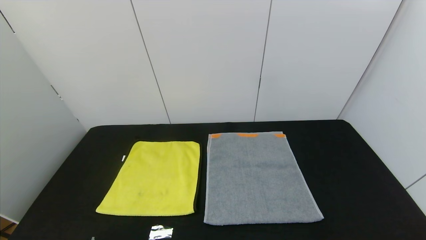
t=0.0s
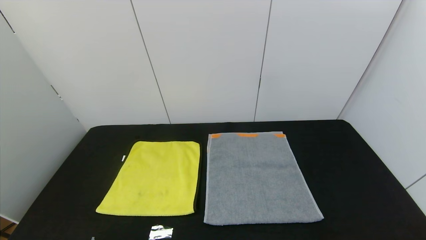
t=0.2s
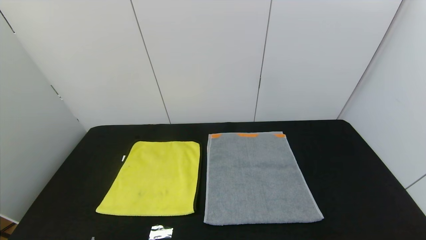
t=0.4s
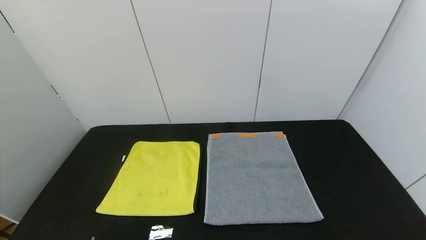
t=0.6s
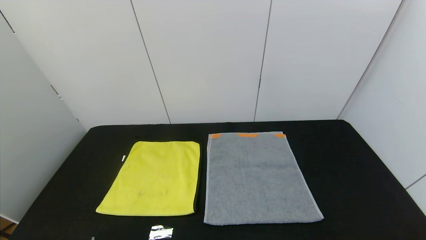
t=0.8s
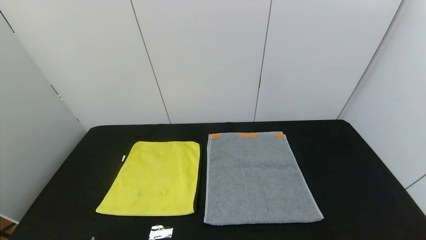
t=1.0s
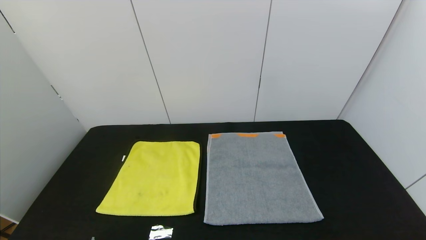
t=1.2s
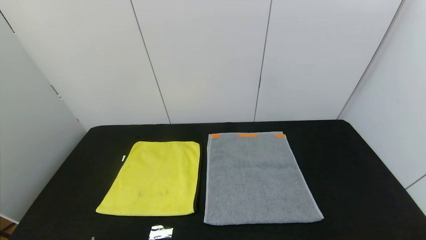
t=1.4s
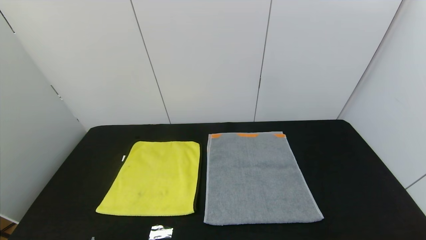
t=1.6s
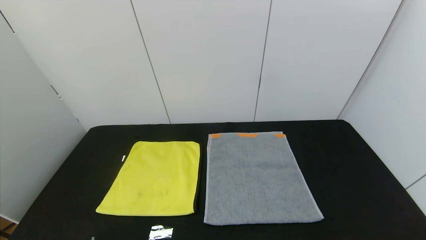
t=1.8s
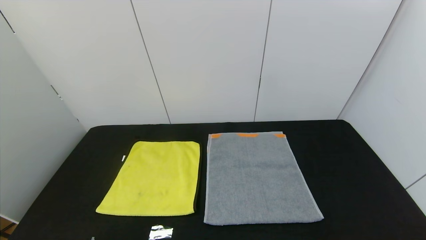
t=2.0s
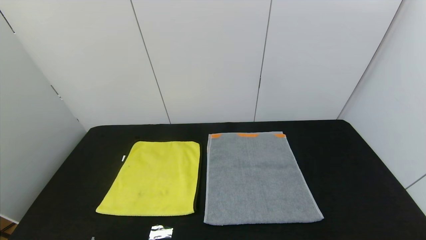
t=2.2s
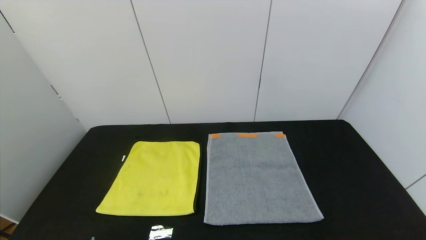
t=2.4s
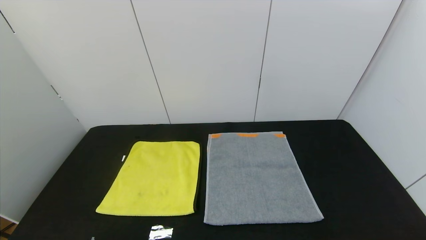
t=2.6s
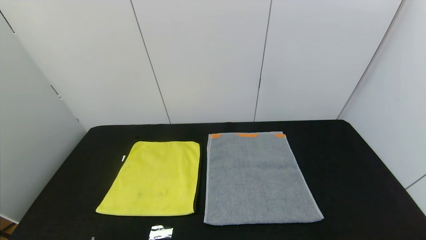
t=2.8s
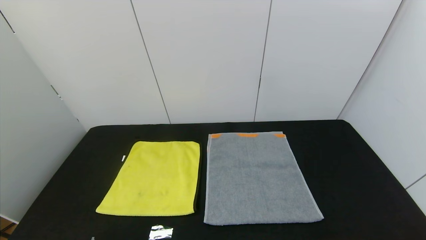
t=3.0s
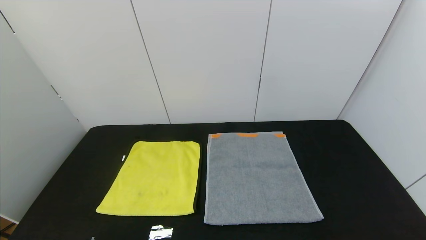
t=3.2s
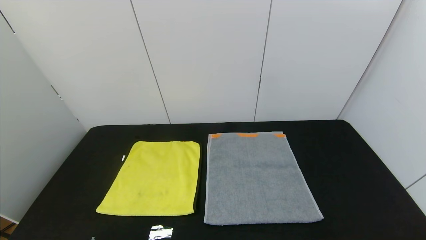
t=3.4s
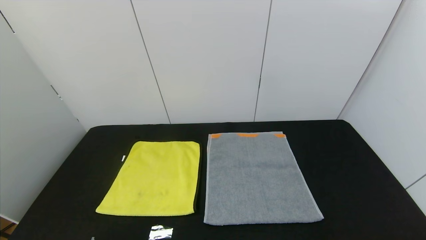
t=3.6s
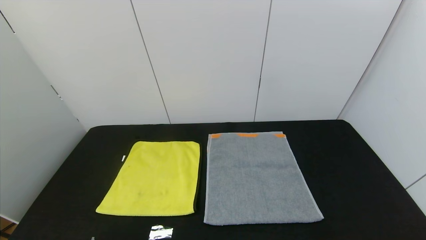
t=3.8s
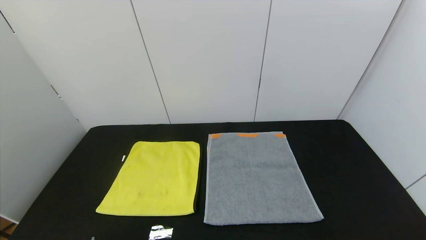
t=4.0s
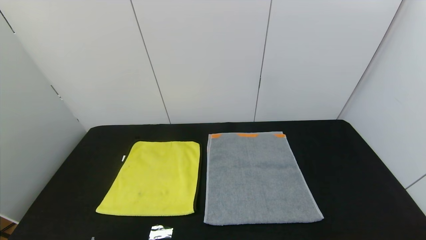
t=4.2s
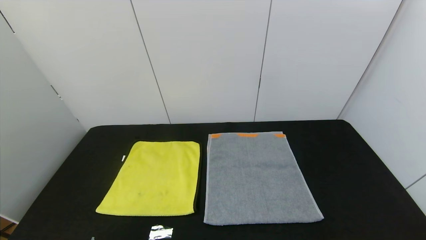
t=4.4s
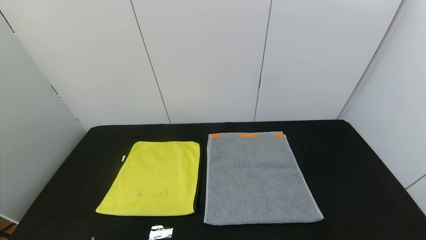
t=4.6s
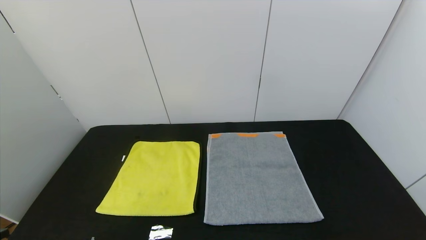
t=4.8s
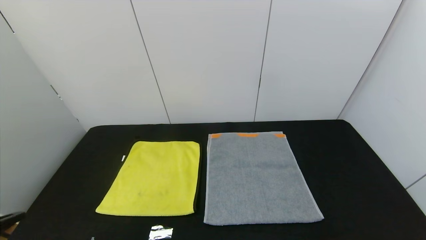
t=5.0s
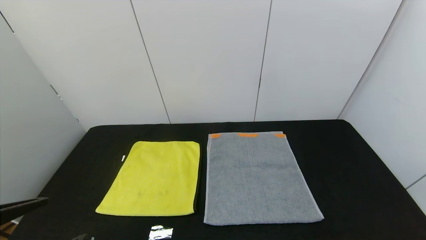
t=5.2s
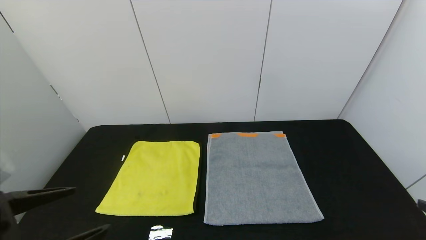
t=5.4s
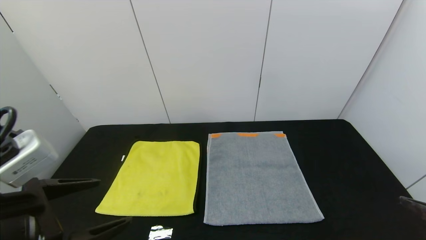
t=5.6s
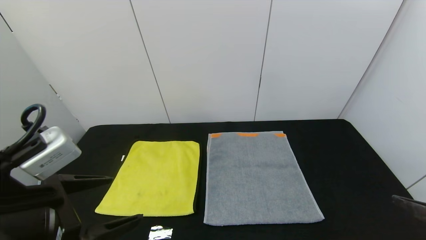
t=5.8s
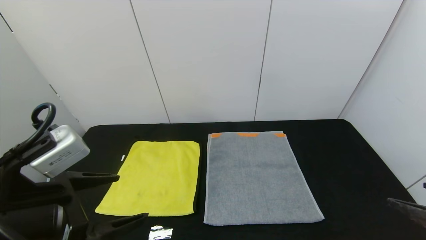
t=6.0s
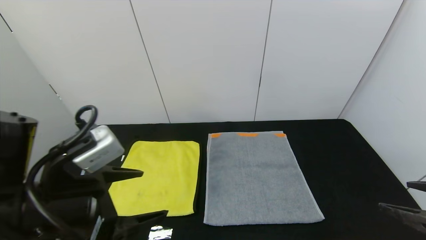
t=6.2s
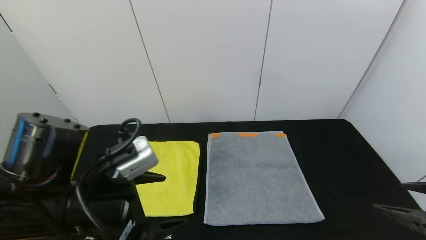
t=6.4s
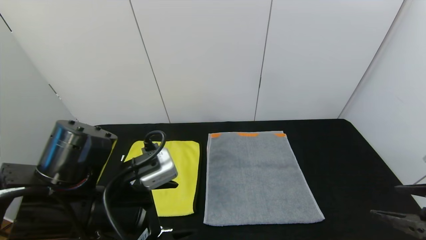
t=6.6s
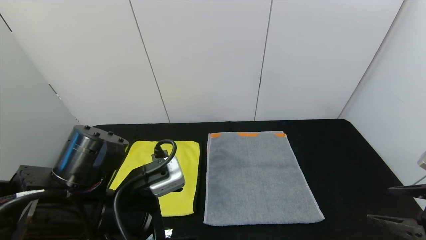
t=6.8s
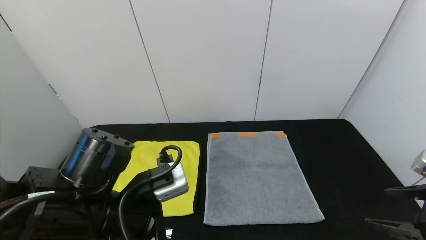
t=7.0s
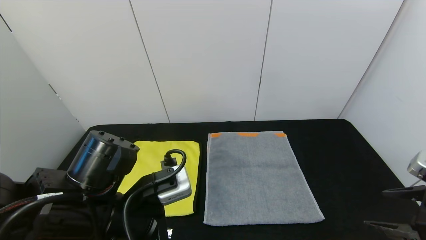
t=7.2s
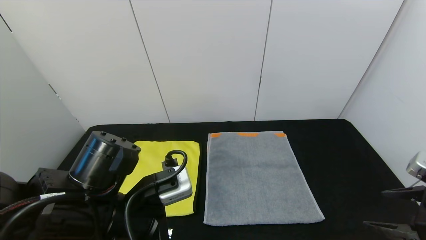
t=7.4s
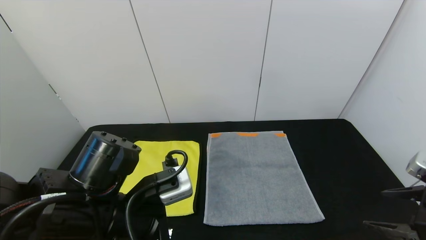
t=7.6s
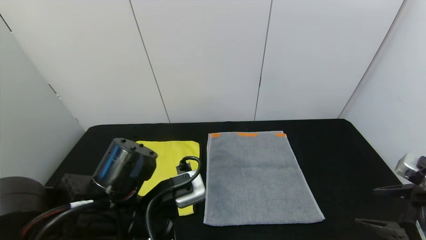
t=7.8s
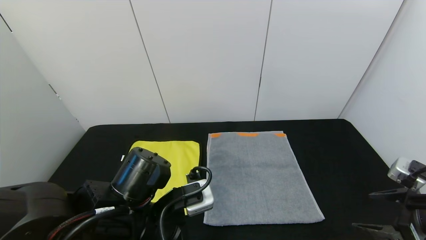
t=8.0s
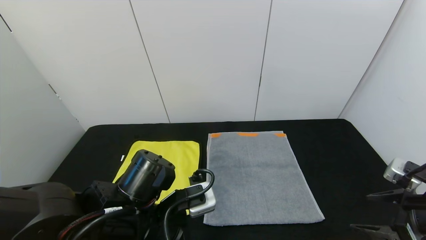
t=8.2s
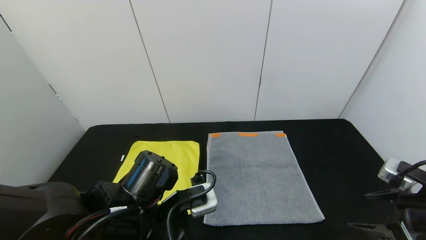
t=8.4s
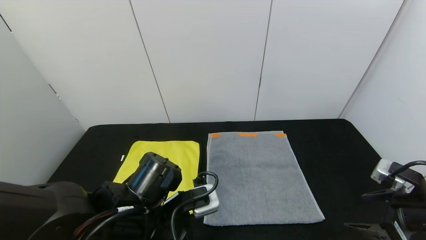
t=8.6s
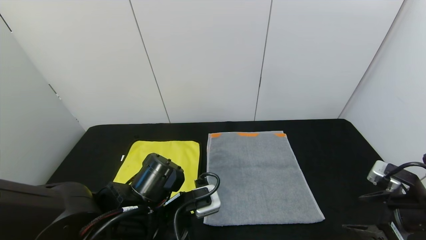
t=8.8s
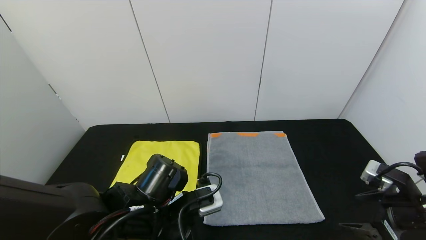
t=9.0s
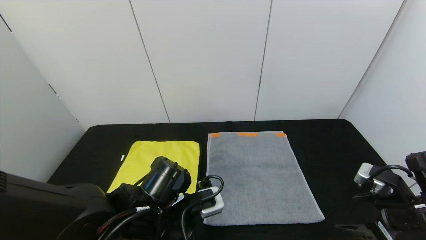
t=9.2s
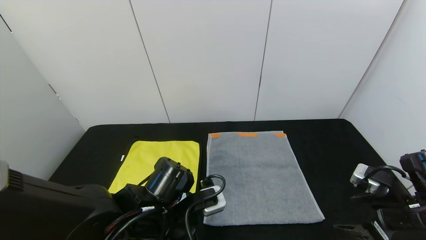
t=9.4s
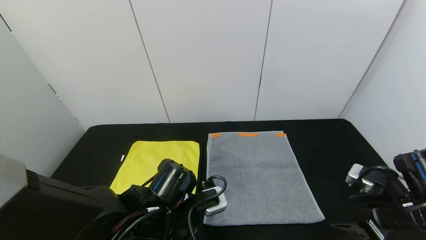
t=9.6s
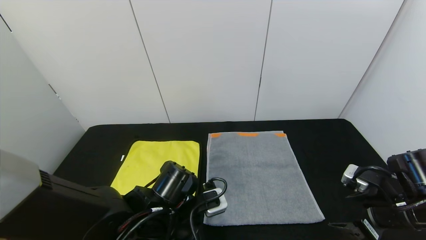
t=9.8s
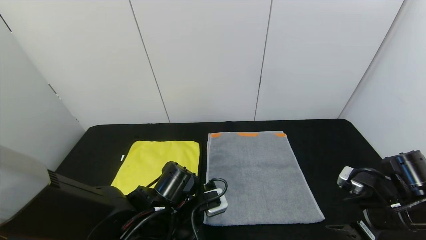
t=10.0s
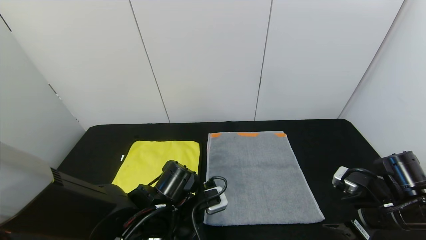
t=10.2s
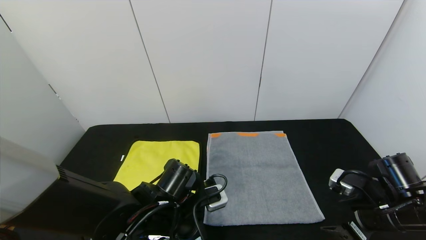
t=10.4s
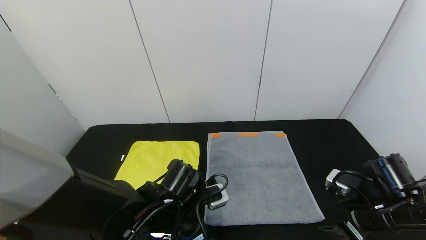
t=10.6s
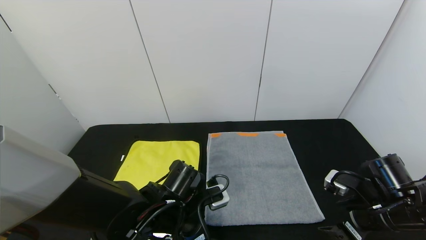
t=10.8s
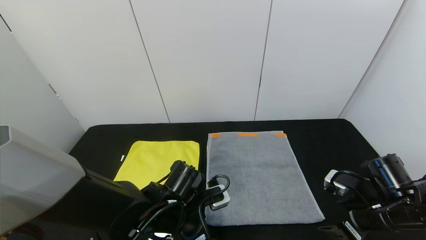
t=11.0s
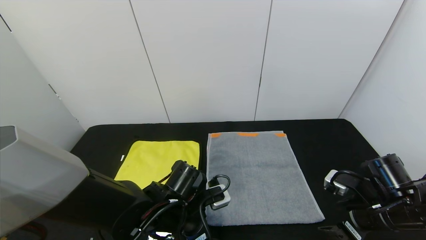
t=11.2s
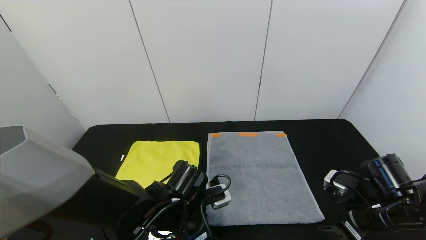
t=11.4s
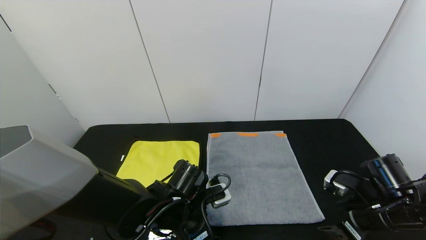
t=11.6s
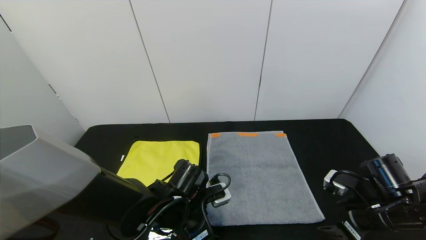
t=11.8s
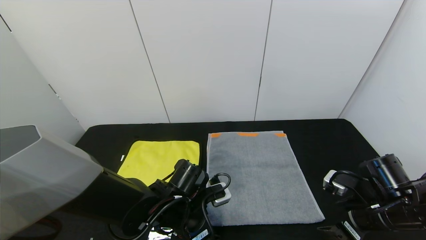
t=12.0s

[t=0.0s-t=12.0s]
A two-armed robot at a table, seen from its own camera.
Task of the whole recording: Use the gripper to fold the yellow towel and grey towel in half twice,then put the yellow towel on the grey towel.
t=0.0s to t=3.0s: The two grippers keep their place.
t=4.4s to t=6.0s: The left gripper moves forward, upward and to the right, approximately 20 cm. Meanwhile the right gripper travels forward and upward by roughly 15 cm.
t=6.0s to t=7.6s: The left gripper travels to the right, downward and forward by approximately 10 cm. Meanwhile the right gripper moves roughly 5 cm.
t=7.6s to t=9.0s: The left gripper travels downward by roughly 5 cm; the right gripper changes place by roughly 5 cm.
t=9.0s to t=10.4s: The right gripper moves roughly 5 cm.
t=10.4s to t=12.0s: There are only small adjustments of the grippers.

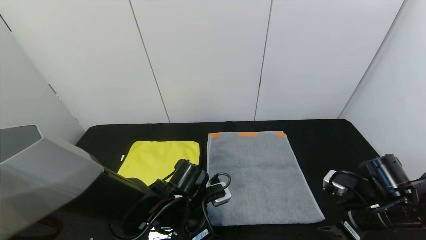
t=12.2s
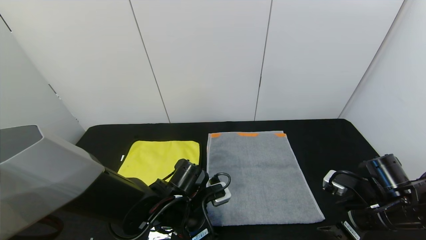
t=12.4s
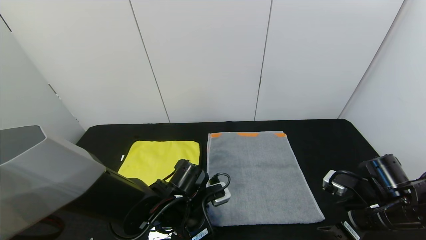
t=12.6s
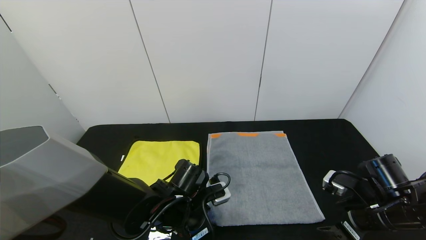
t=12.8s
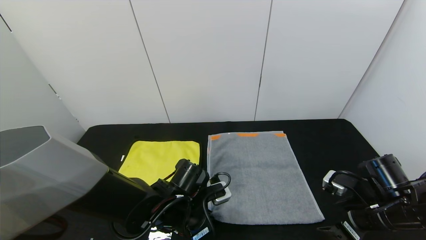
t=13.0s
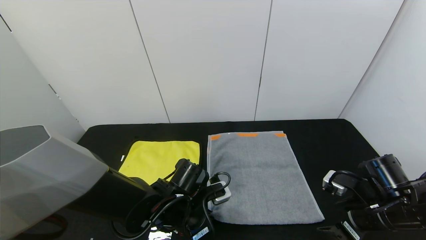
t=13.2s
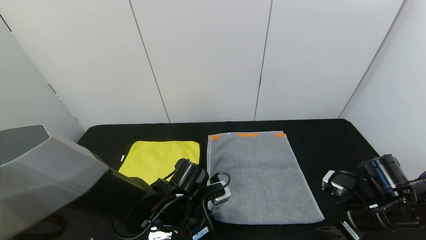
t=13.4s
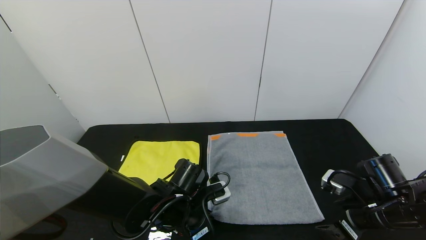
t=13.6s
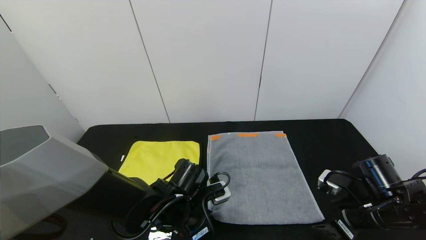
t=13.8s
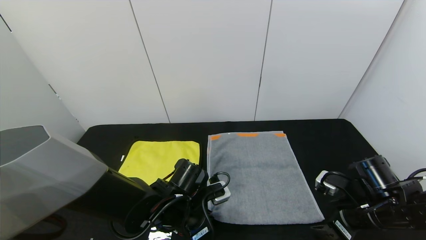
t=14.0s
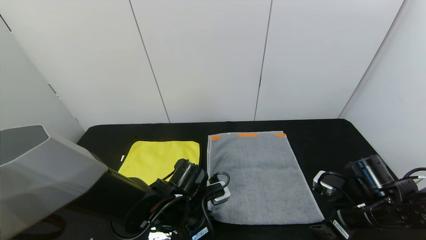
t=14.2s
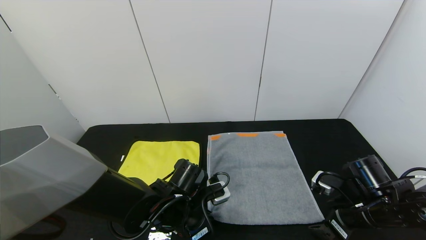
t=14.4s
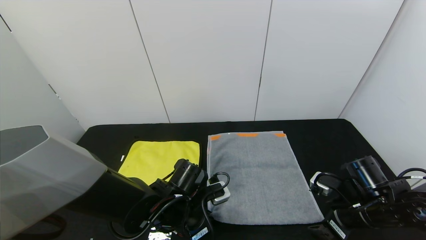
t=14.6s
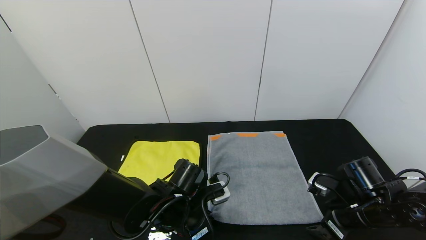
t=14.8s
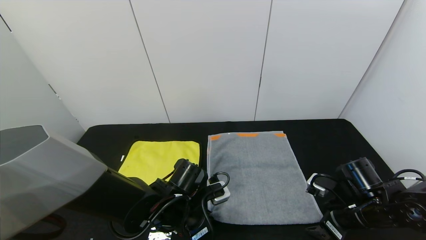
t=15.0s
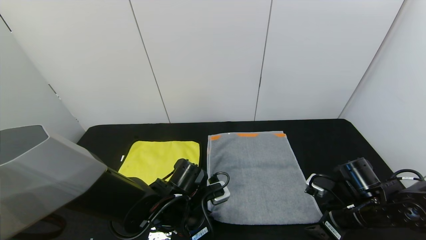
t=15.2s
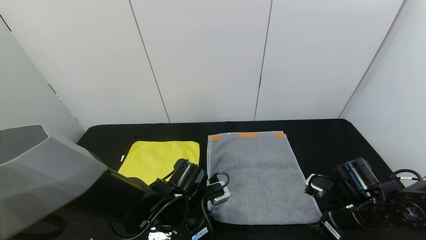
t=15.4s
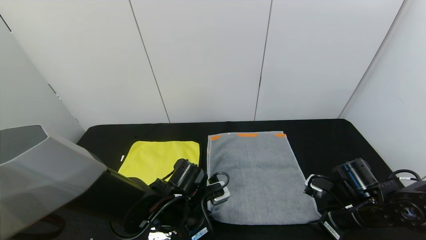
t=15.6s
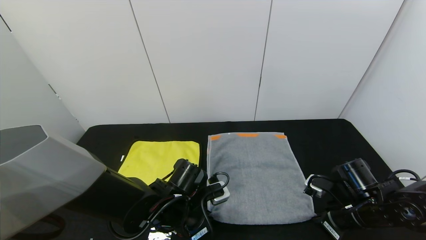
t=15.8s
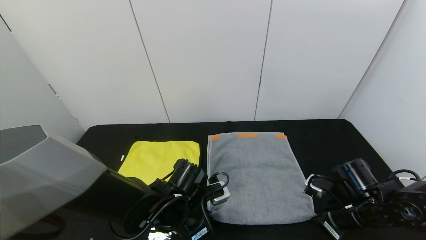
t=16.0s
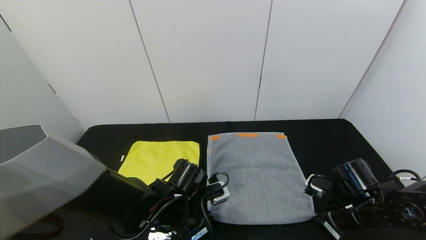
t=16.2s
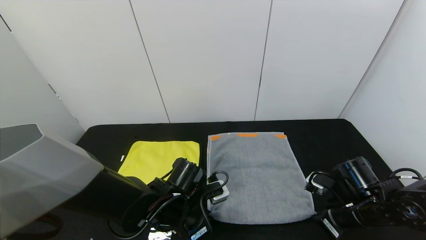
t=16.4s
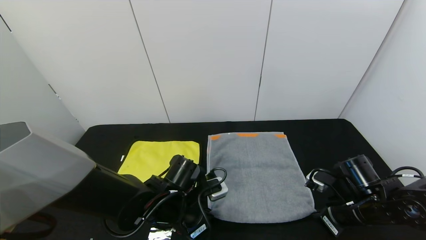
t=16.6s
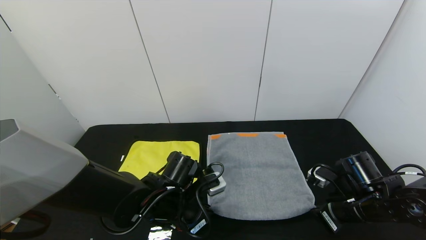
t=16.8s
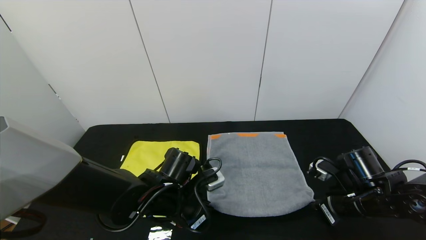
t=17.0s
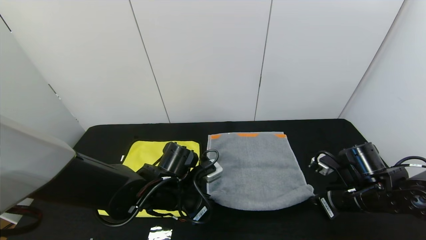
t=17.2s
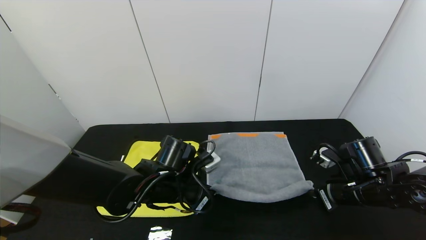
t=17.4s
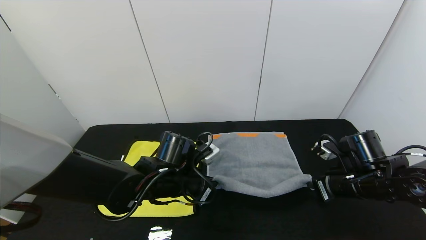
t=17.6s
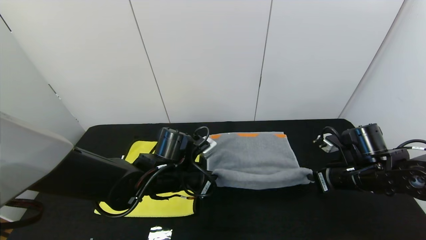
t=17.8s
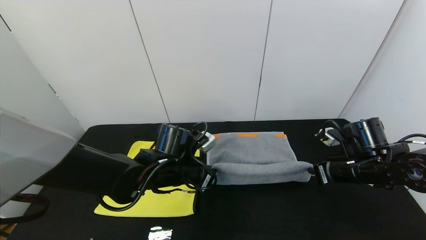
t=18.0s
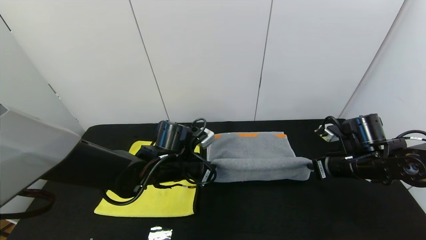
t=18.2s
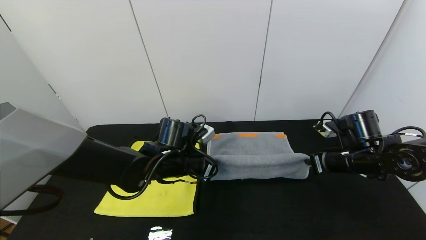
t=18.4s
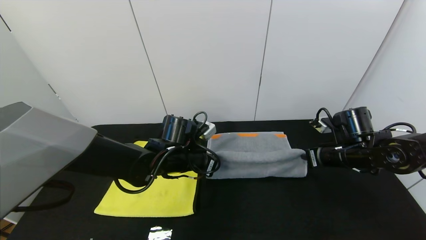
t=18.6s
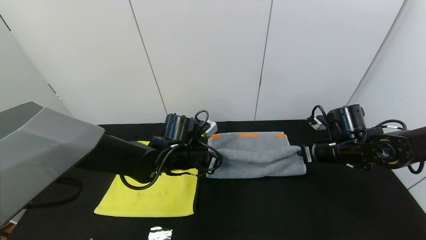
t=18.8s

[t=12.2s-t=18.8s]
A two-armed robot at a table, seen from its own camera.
Task of the whole recording: Use the gripper to fold the yellow towel and grey towel in half twice,then put the yellow towel on the grey towel.
t=12.2s to t=13.8s: The left gripper closes its fingers.
t=13.8s to t=15.4s: The right gripper closes up.
t=15.4s to t=17.2s: The right gripper closes up.
t=17.2s to t=18.8s: The two grippers go approximately 10 cm forward.
